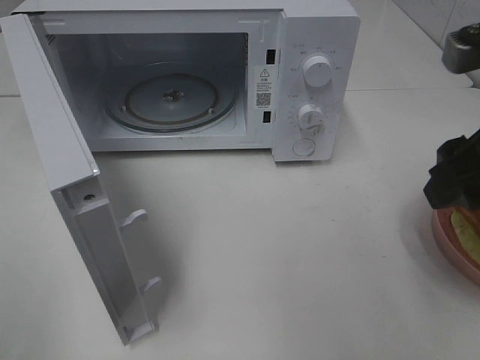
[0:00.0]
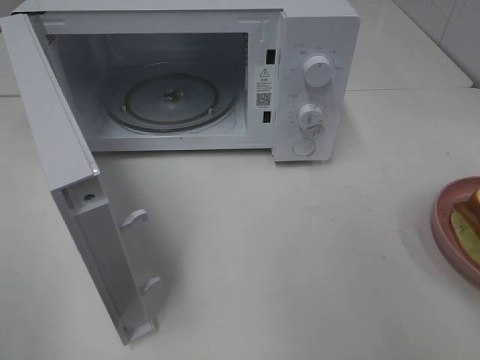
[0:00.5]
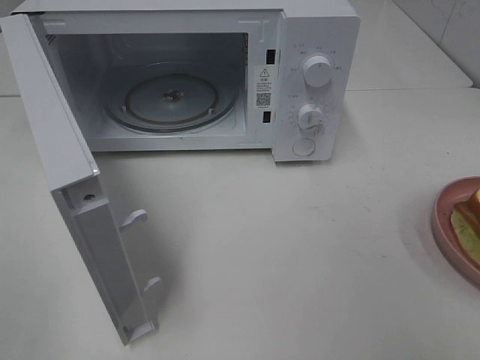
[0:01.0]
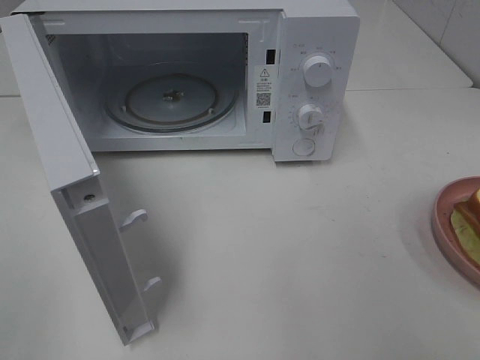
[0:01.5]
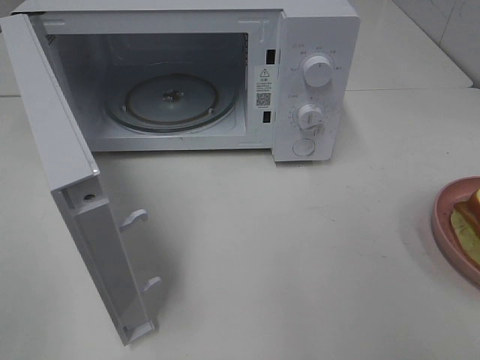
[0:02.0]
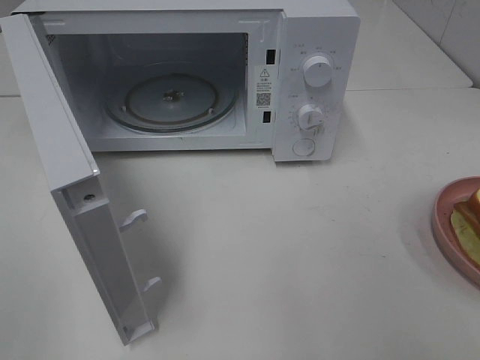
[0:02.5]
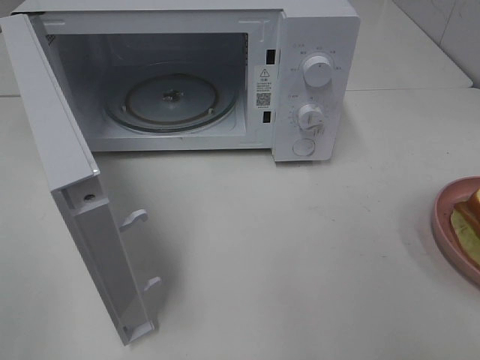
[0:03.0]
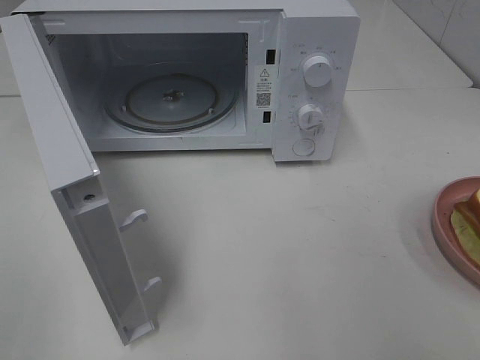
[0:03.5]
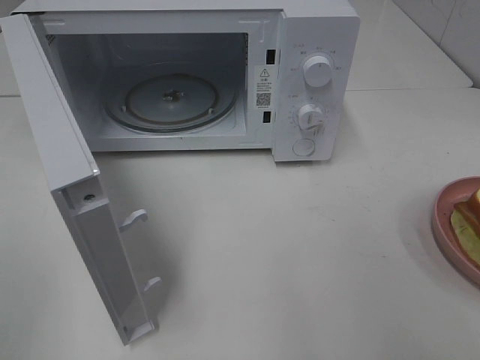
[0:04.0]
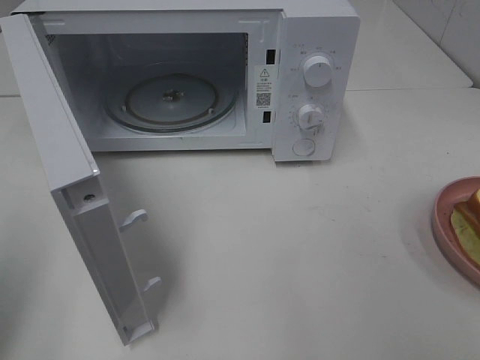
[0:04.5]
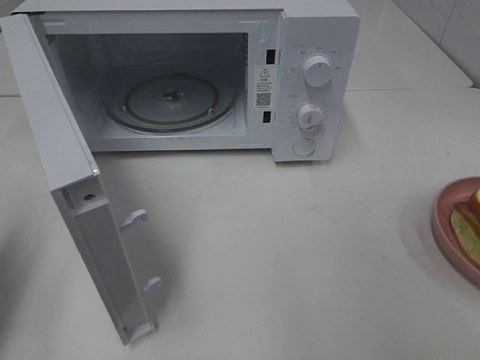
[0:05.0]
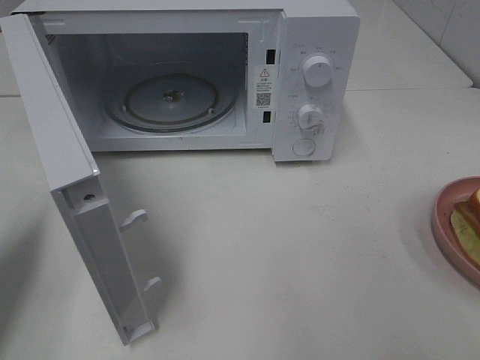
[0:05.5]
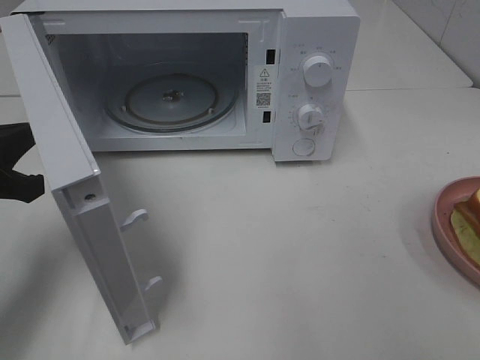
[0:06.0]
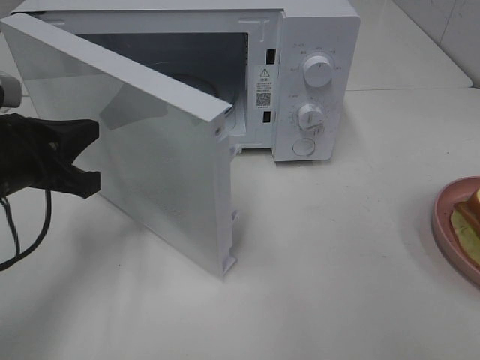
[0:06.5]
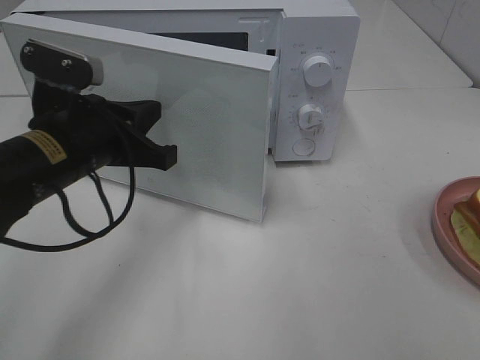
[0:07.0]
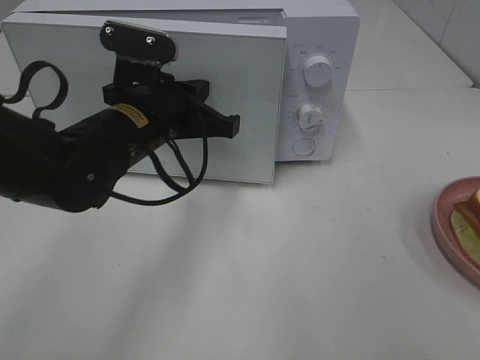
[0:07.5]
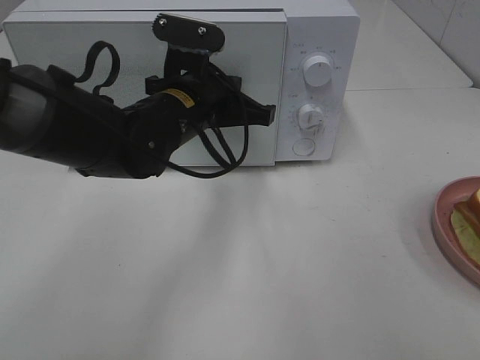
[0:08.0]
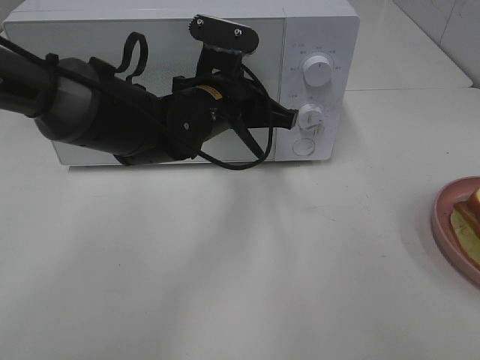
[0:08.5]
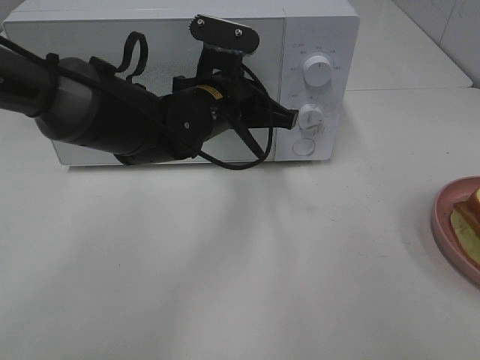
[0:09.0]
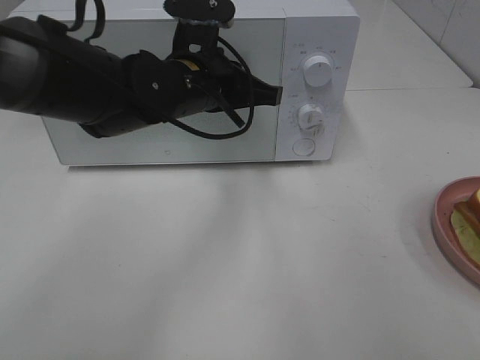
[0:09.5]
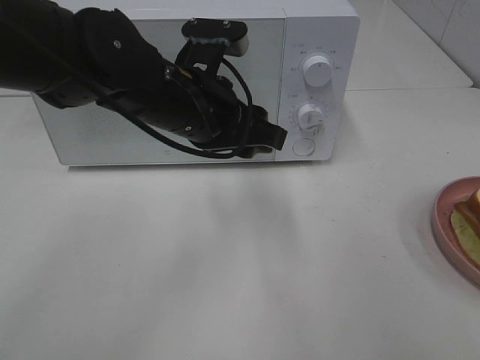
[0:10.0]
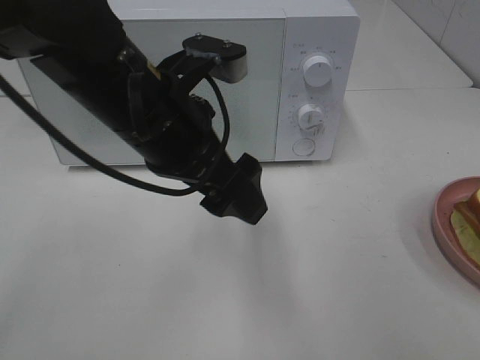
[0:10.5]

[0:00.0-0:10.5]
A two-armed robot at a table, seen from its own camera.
Task of the whole recording: Heat Sandwich.
Step, 0:00.0 to 0:09.0: Left hand: close the microwave door.
0:00.0 to 0:02.0: The right gripper moves backward and to the right, about 20 cm.
0:04.0 to 0:06.5: The left gripper heads forward, downward and to the right, covering some 30 cm, and closes.
0:06.5 to 0:08.5: The left gripper heads to the right and forward, covering approximately 20 cm.
0:08.5 to 0:10.5: The left gripper is displaced backward and upward by roughly 10 cm, and opens up.

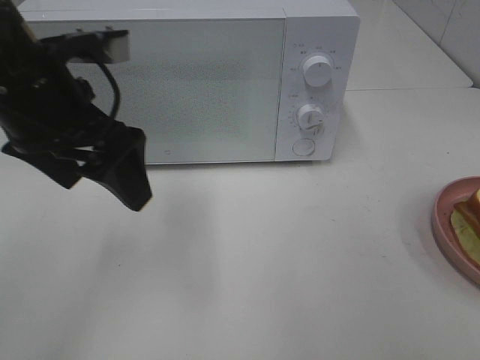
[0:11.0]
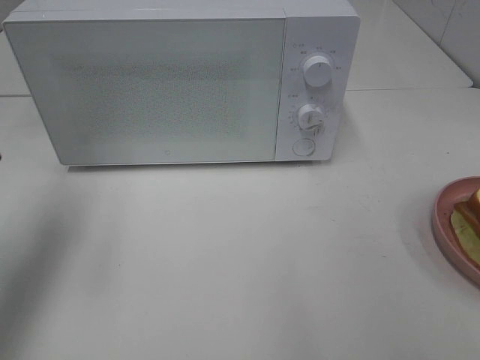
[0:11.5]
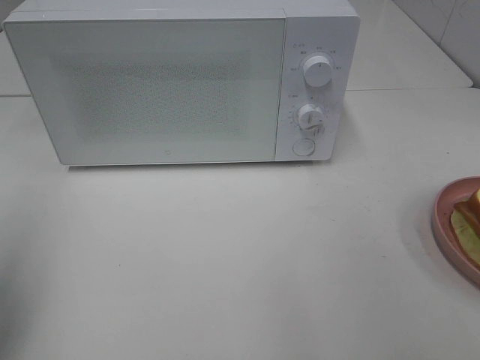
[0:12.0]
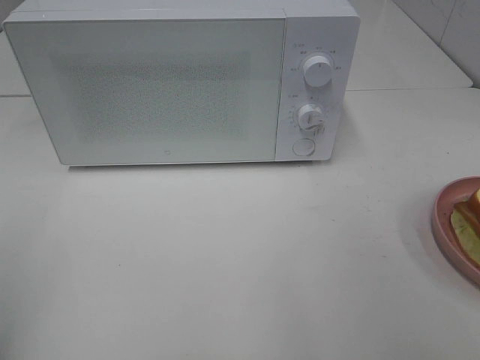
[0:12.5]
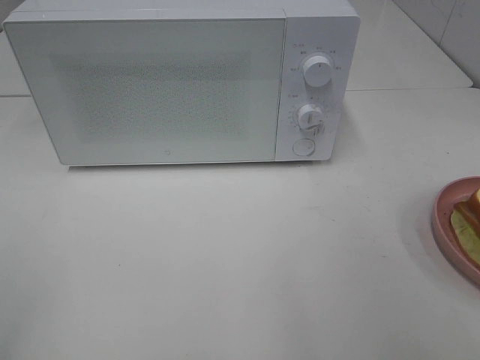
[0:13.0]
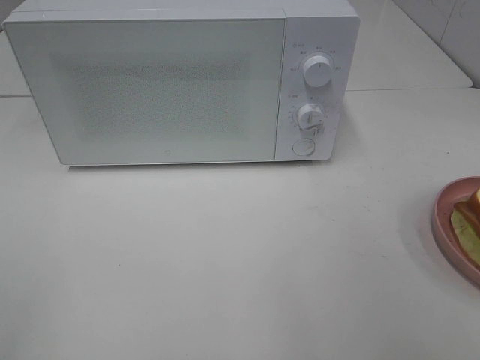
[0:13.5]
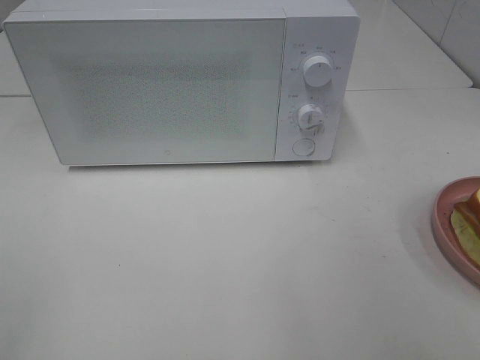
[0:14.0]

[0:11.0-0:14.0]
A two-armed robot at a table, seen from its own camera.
Task of the whole recording: Heat Sandwich.
0:11.0 to 0:12.5: The left gripper goes roughly 25 cm backward and to the left.
